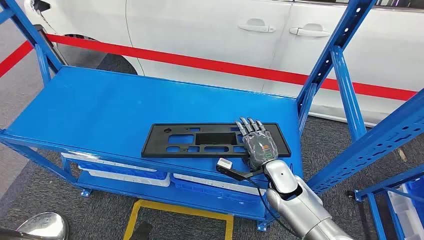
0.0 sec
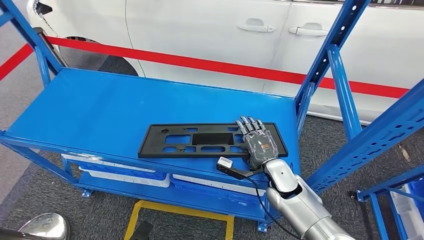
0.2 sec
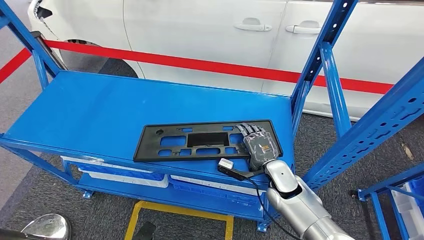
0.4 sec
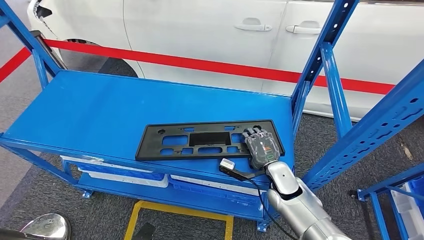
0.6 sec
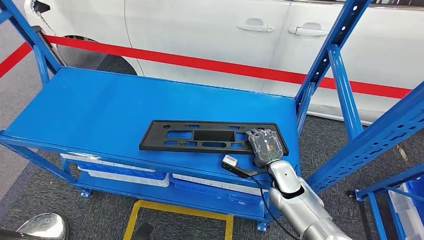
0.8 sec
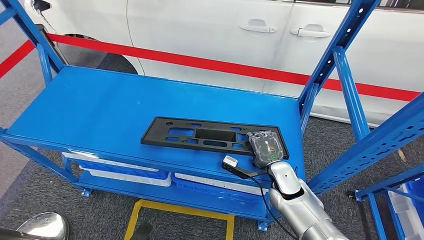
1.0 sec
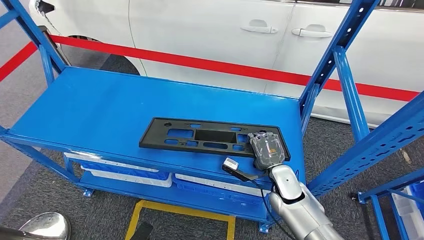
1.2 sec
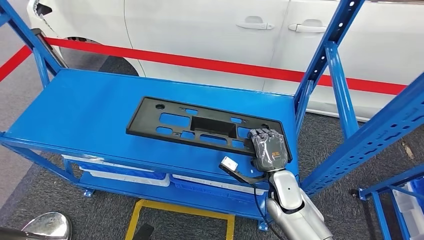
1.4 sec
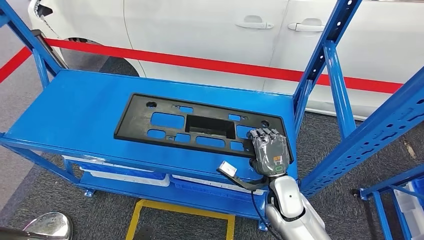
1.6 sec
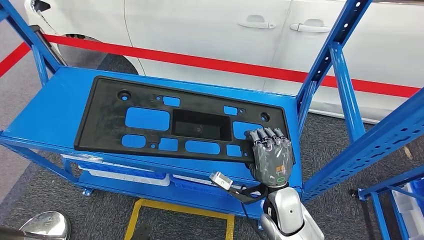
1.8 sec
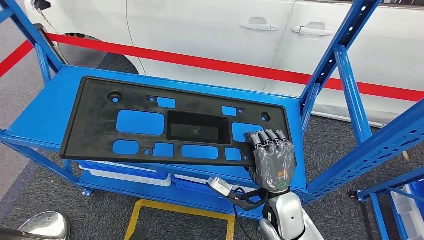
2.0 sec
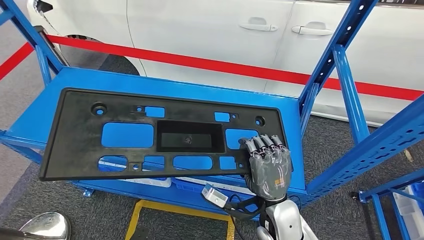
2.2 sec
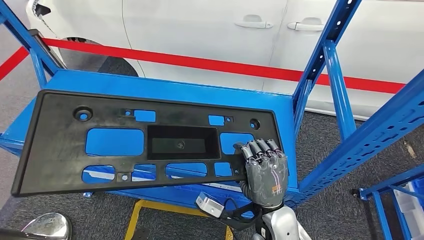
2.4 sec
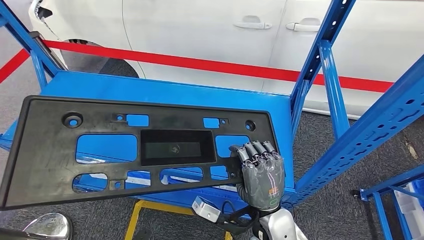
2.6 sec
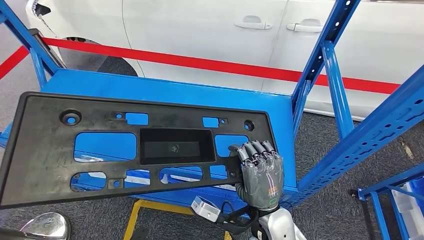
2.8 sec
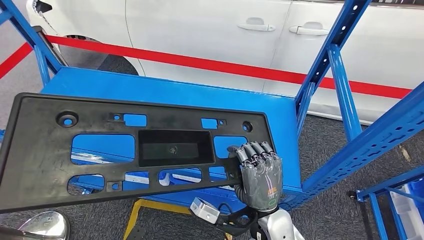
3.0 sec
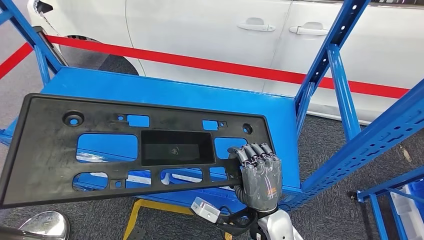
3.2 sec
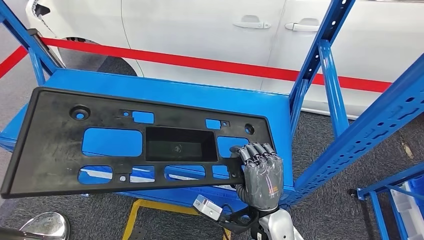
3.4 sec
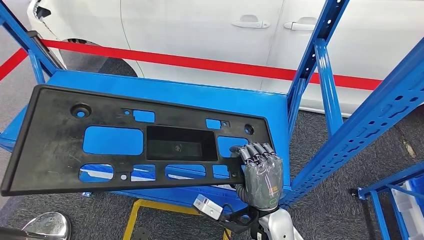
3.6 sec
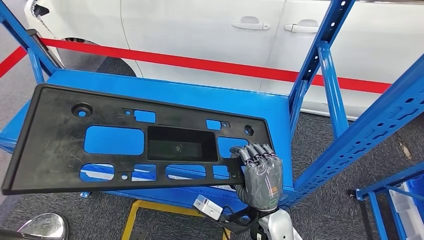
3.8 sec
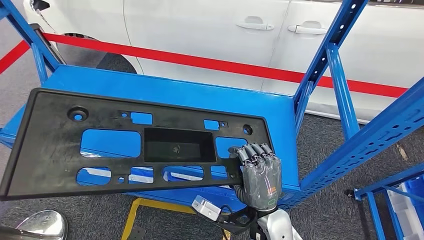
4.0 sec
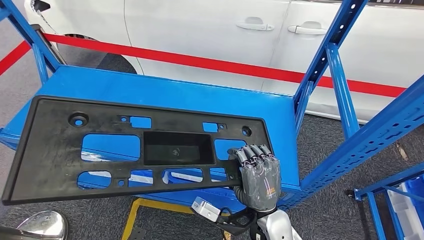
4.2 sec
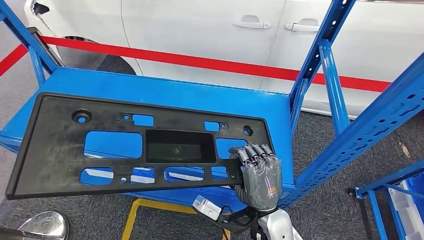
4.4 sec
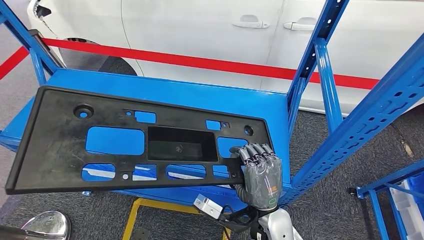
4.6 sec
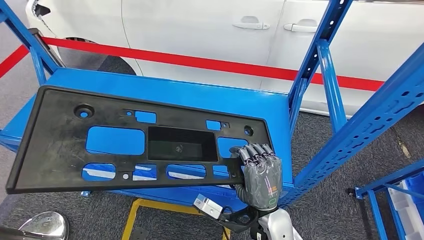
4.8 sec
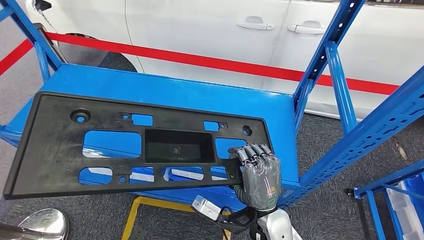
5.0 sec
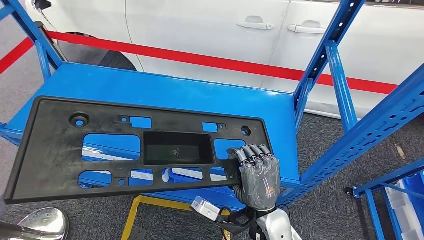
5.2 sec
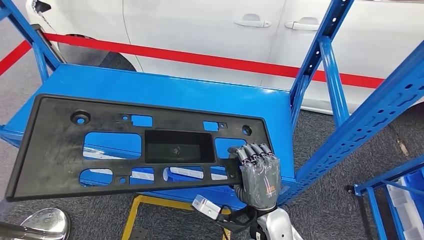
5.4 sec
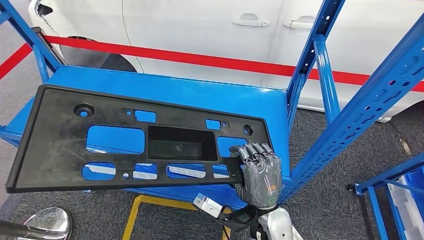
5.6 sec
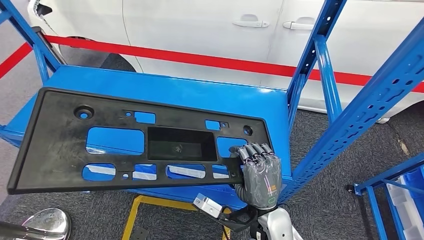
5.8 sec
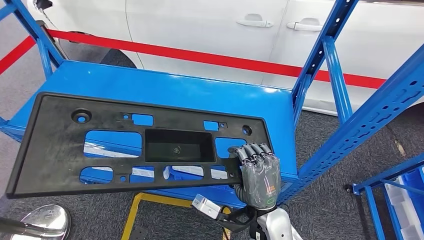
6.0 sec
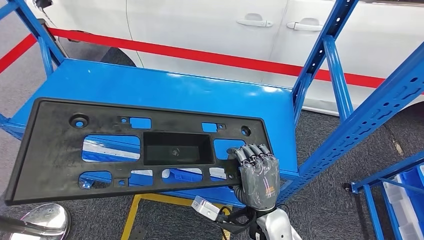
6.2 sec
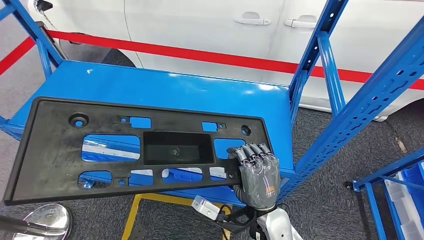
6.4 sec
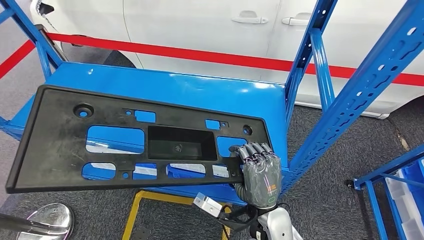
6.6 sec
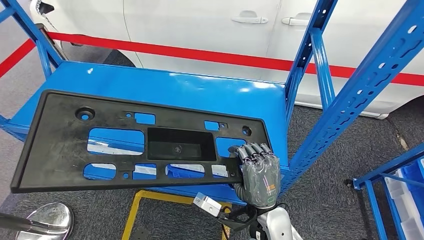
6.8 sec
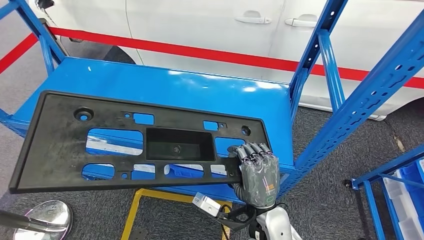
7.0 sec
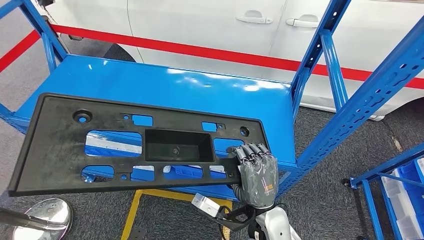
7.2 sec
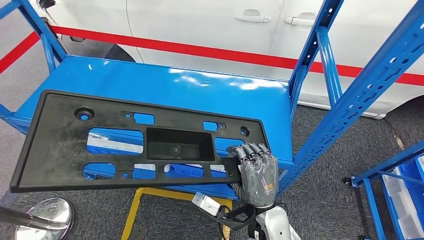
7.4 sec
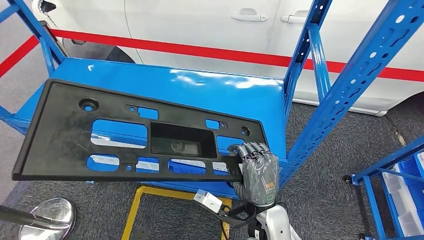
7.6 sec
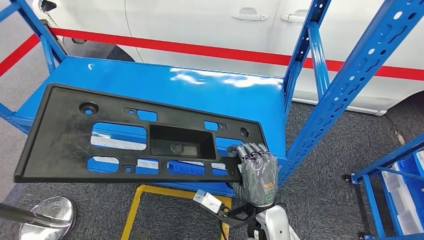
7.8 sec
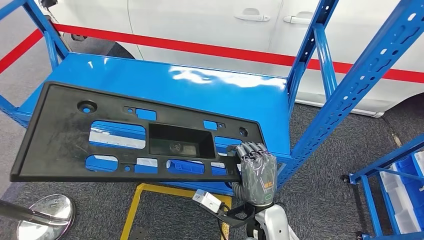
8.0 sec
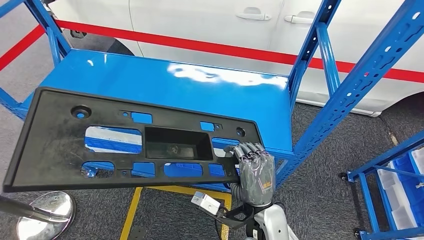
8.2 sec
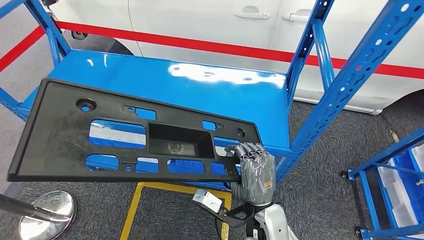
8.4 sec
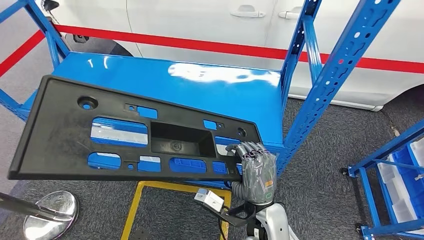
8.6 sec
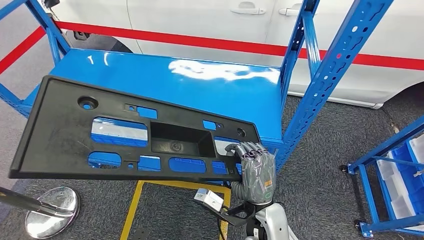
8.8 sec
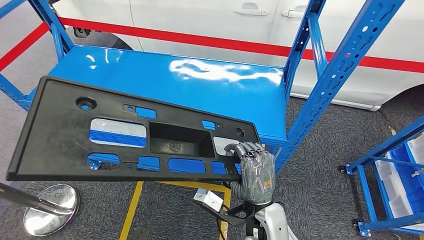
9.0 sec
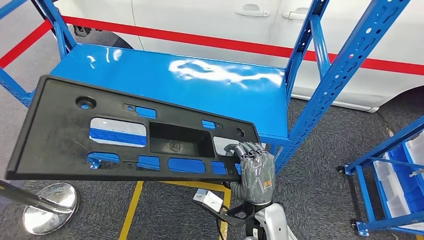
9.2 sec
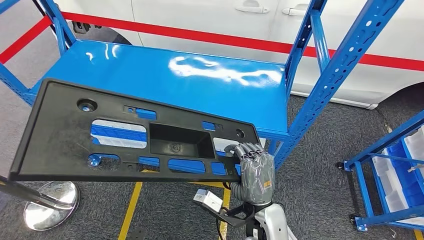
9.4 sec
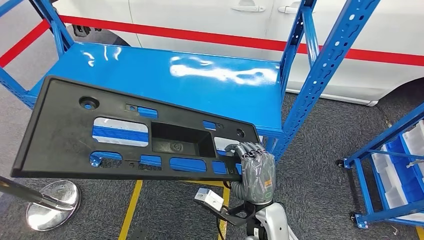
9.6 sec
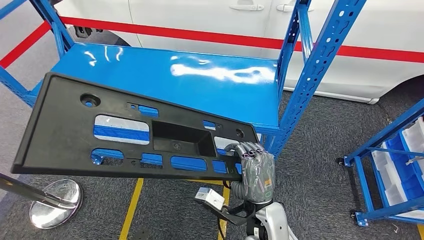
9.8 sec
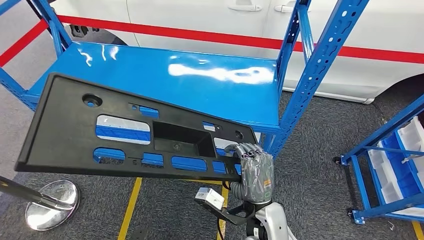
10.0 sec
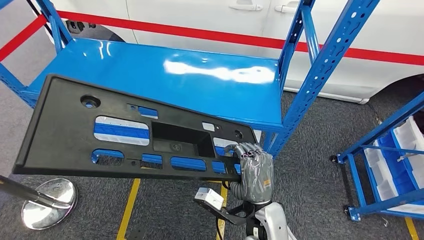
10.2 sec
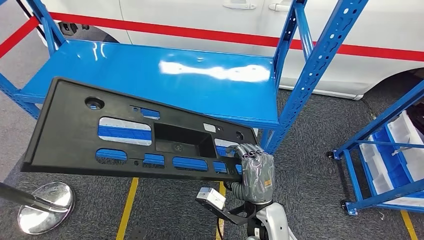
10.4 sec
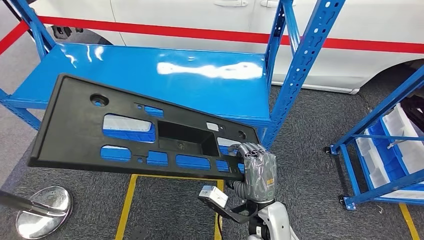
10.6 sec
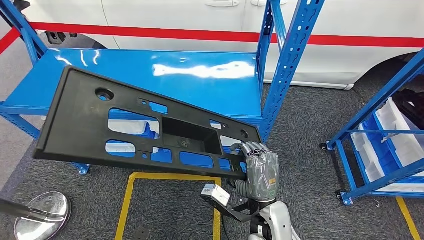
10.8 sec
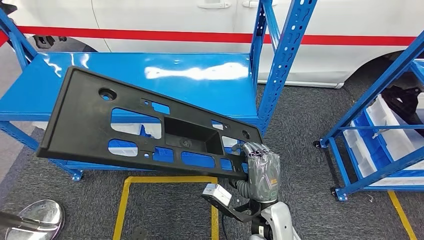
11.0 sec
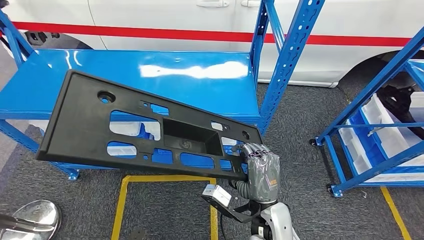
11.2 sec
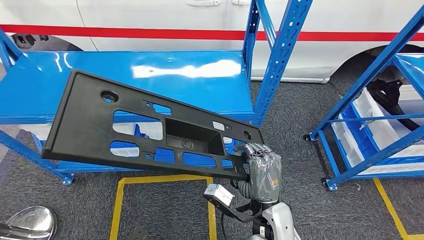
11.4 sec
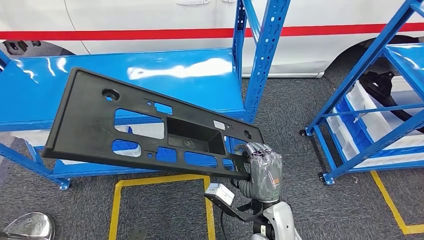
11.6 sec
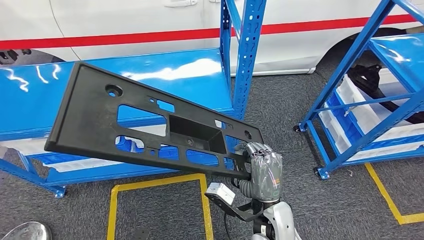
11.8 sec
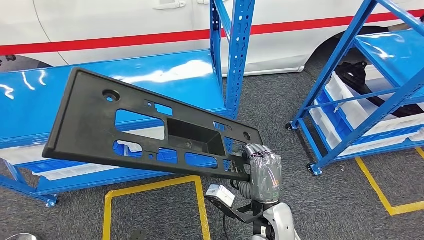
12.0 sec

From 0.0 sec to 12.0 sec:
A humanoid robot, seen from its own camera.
Step, from 0.0 sec to 3.4 sec: Pick up the large material from the shelf.
From 4.4 sec to 6.0 sec: Both hands stay about where they are.

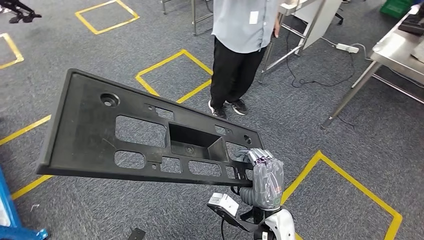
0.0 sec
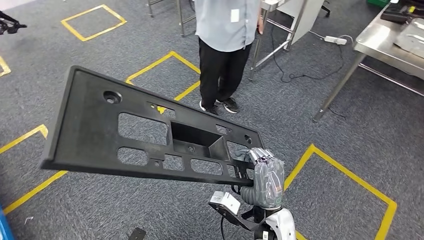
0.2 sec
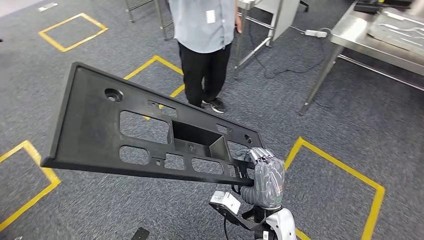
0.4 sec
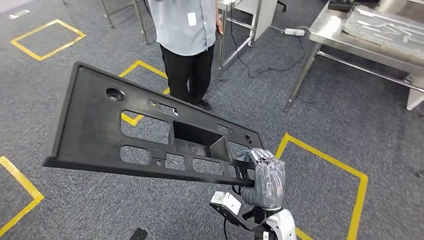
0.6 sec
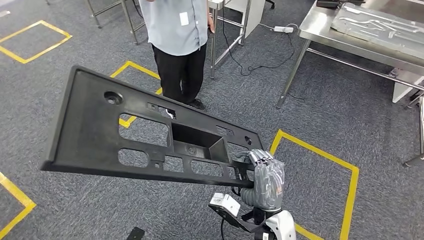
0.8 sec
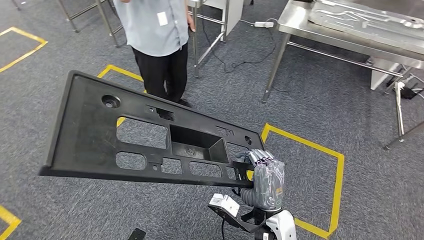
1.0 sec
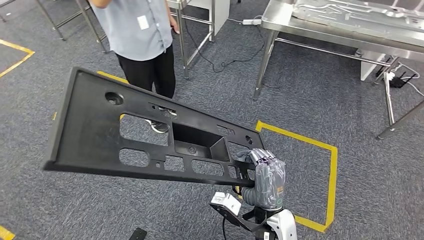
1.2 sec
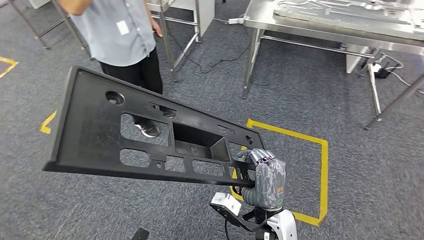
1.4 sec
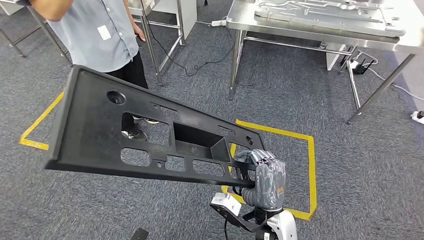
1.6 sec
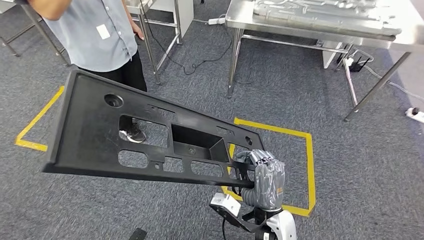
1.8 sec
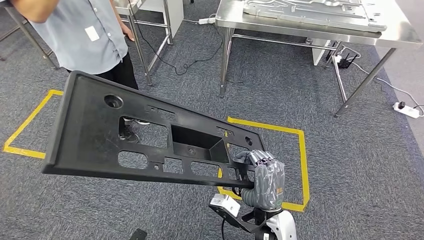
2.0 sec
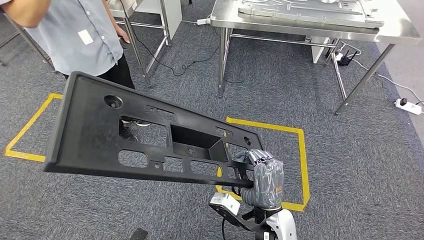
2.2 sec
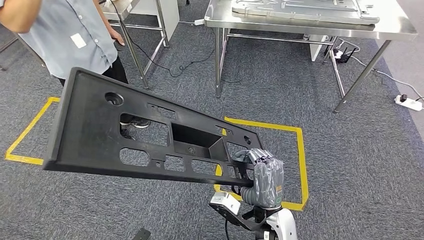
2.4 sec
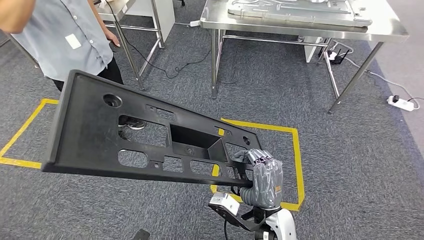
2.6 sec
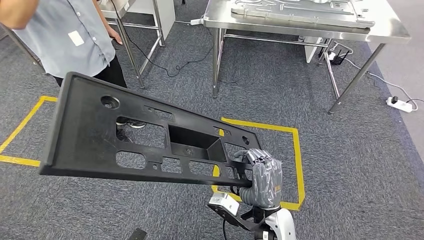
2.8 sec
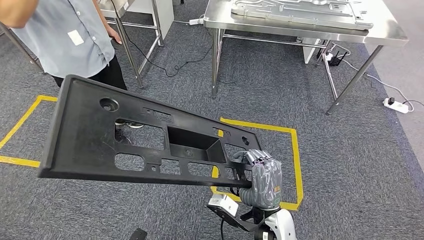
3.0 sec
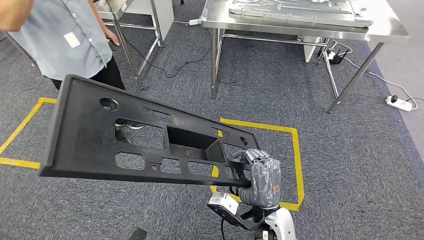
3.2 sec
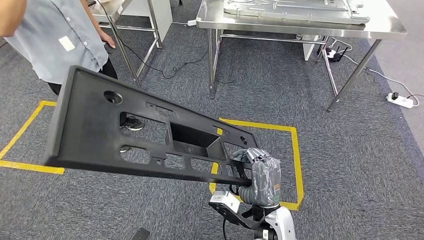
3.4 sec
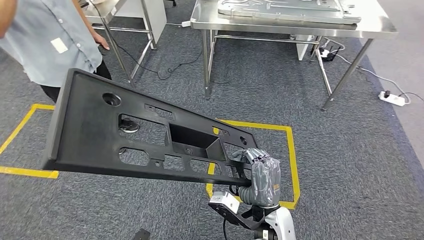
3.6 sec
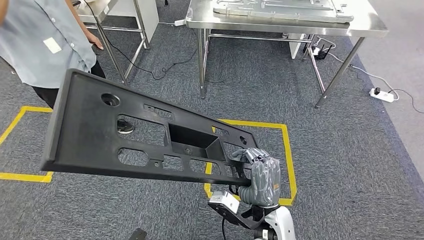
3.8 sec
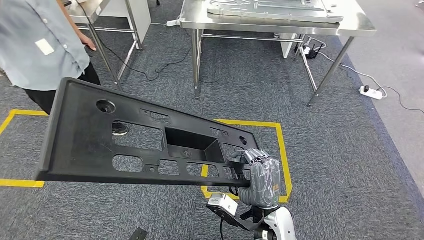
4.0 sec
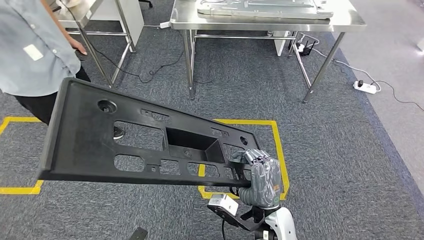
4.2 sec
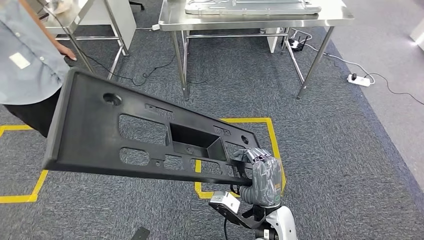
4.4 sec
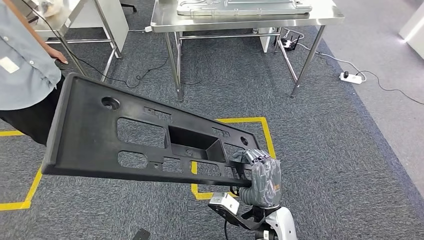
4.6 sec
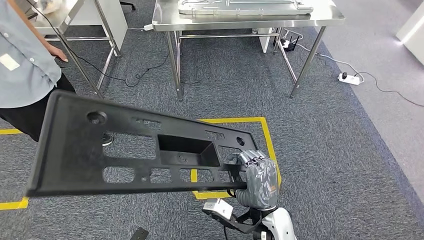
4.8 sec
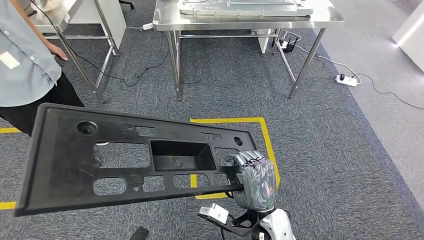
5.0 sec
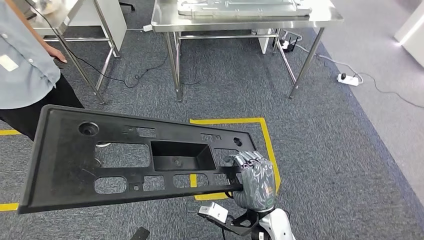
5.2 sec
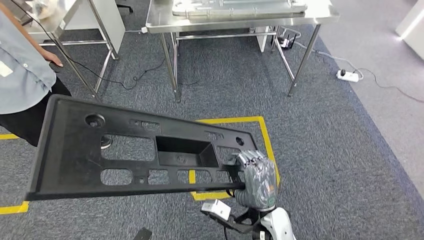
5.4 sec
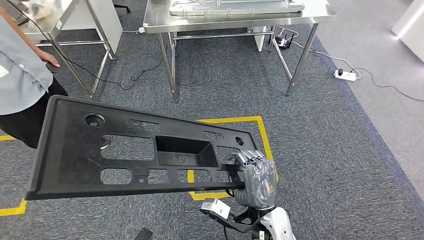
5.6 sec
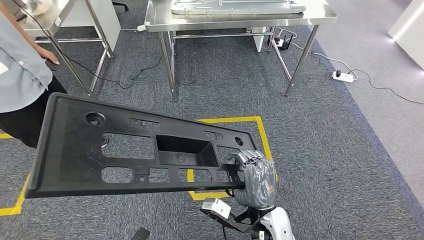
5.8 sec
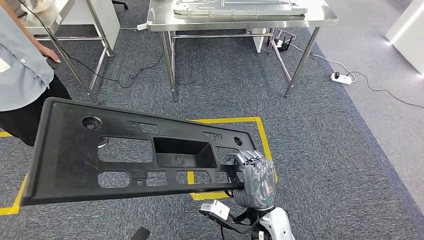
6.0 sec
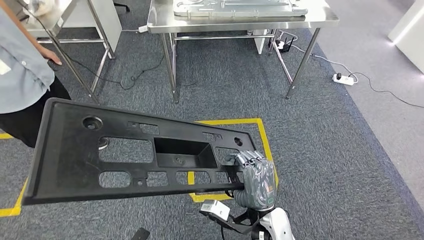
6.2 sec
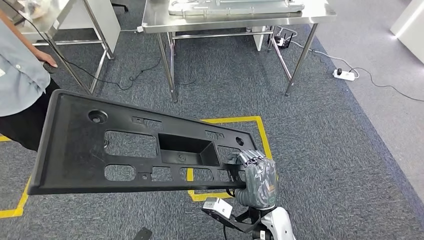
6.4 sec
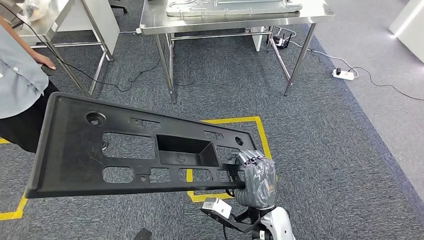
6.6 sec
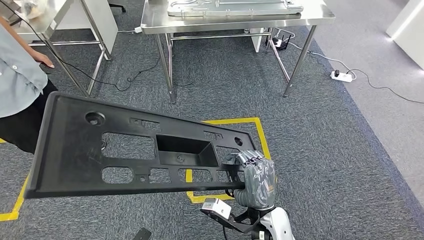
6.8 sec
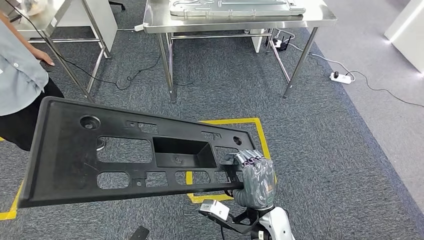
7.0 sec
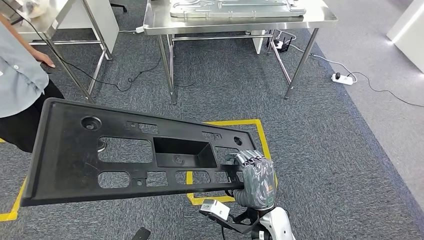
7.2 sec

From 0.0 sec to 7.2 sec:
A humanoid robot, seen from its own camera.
From 5.8 sec to 7.2 sec: Neither hand changes place.
